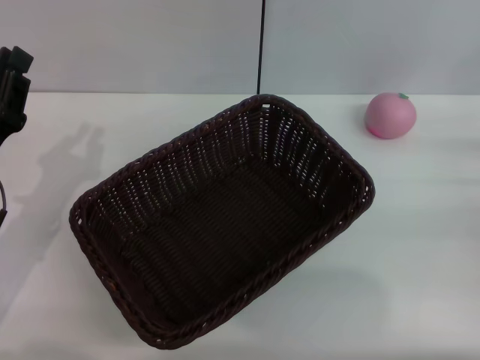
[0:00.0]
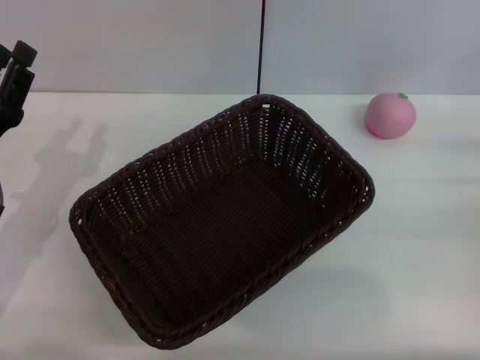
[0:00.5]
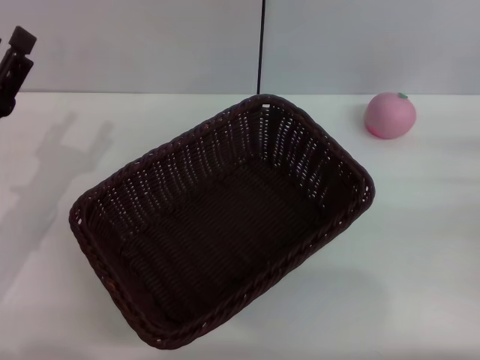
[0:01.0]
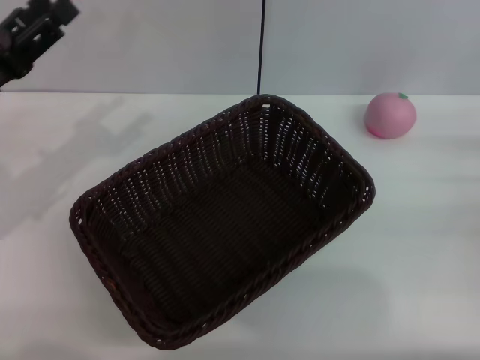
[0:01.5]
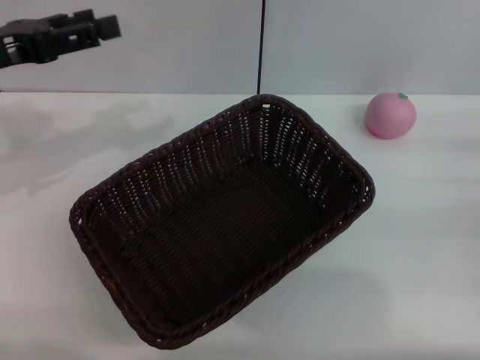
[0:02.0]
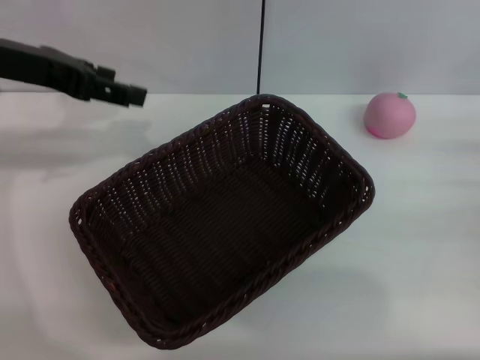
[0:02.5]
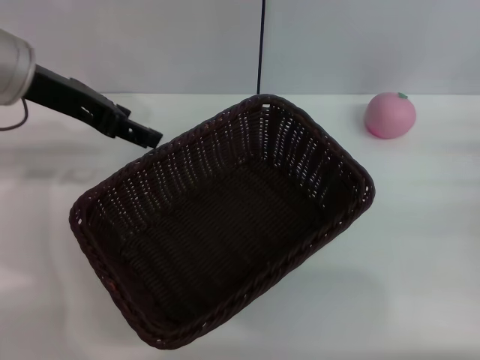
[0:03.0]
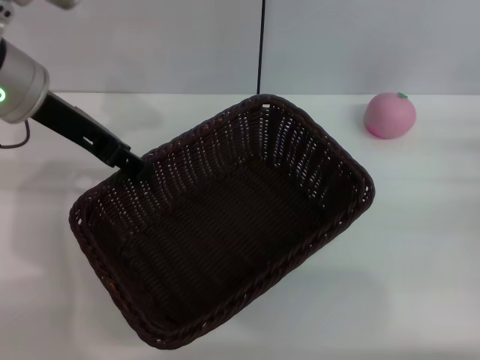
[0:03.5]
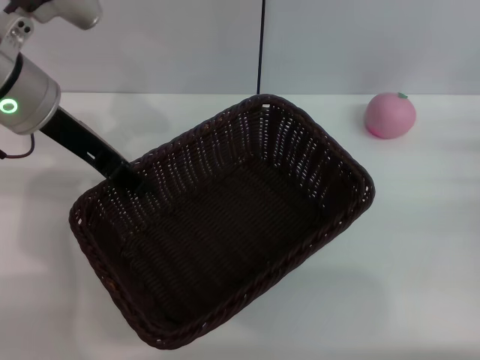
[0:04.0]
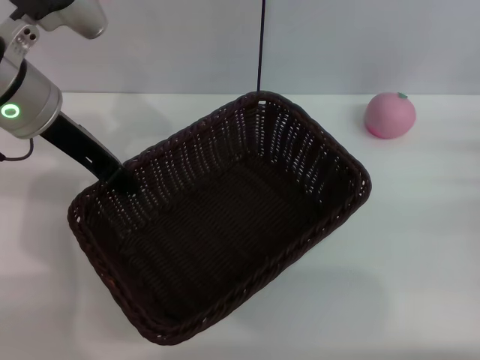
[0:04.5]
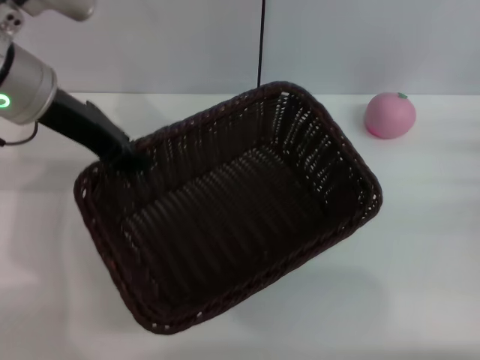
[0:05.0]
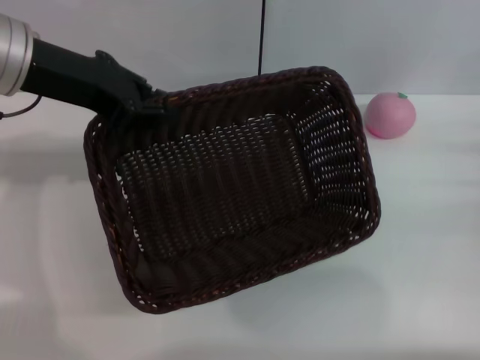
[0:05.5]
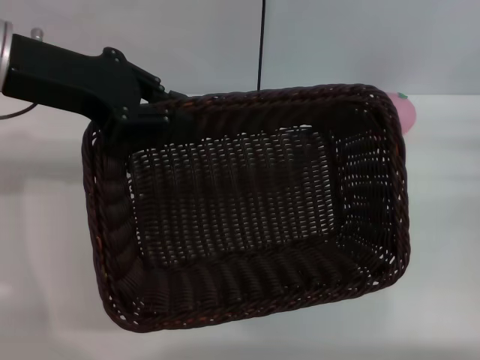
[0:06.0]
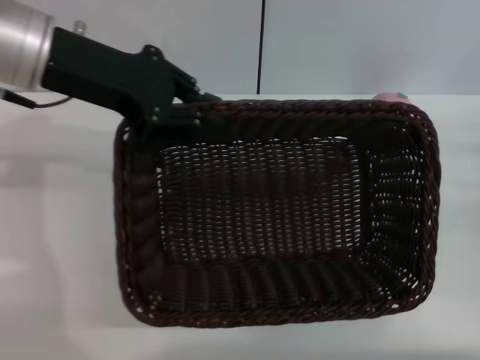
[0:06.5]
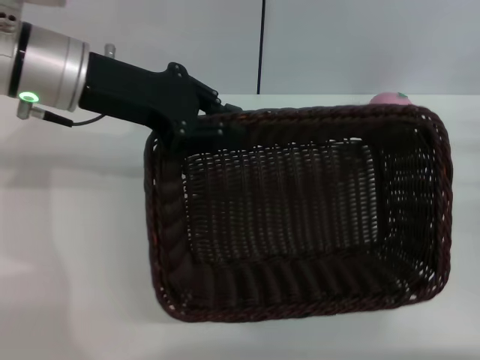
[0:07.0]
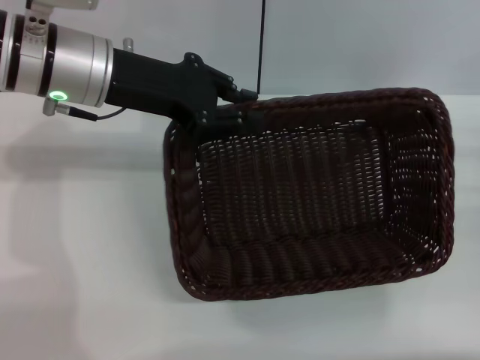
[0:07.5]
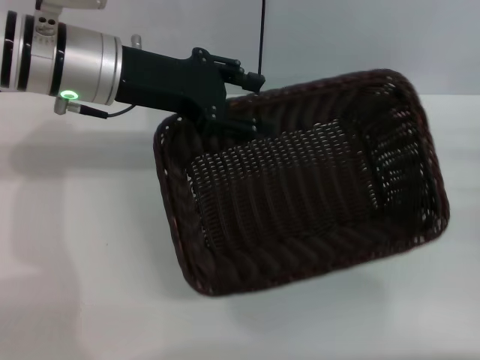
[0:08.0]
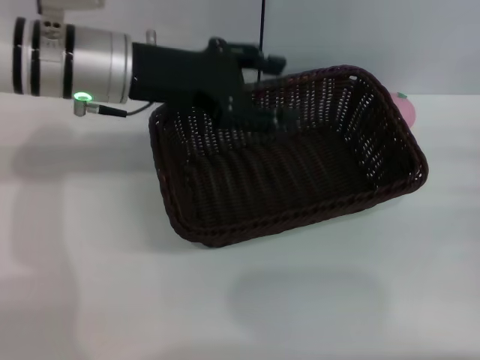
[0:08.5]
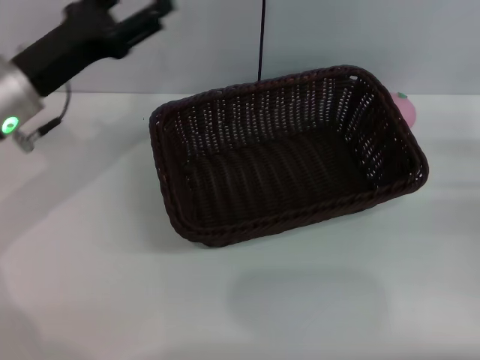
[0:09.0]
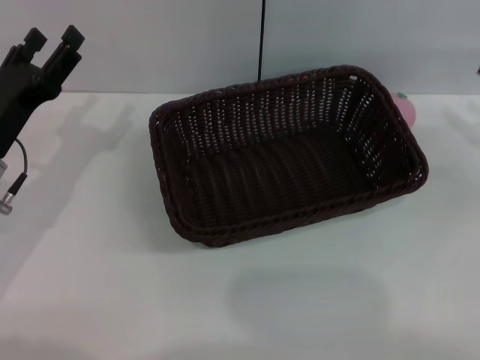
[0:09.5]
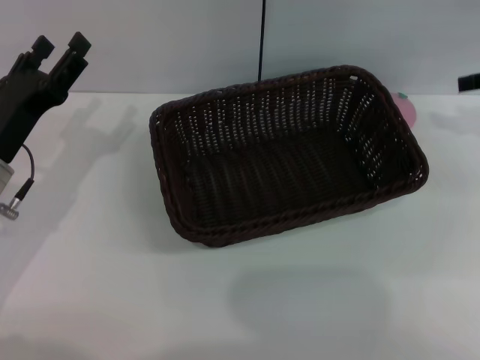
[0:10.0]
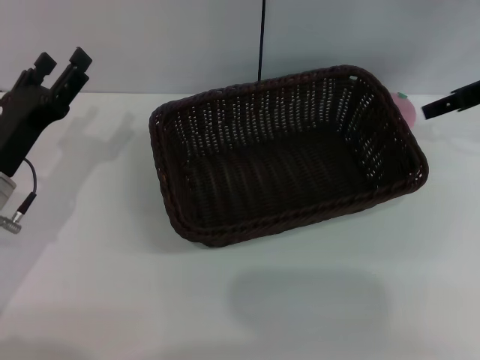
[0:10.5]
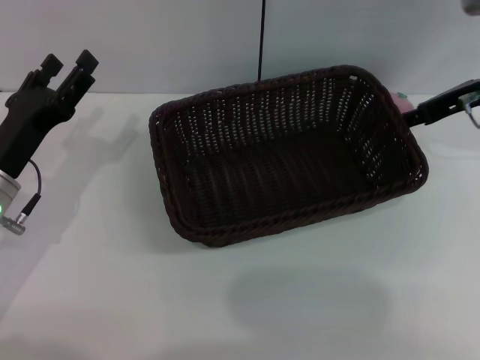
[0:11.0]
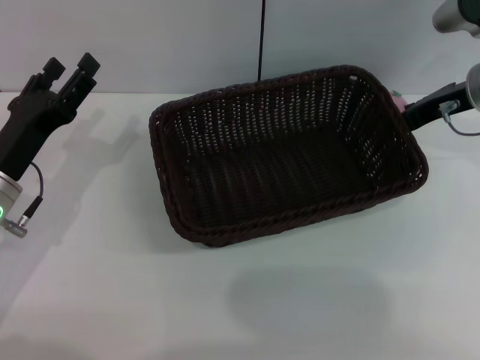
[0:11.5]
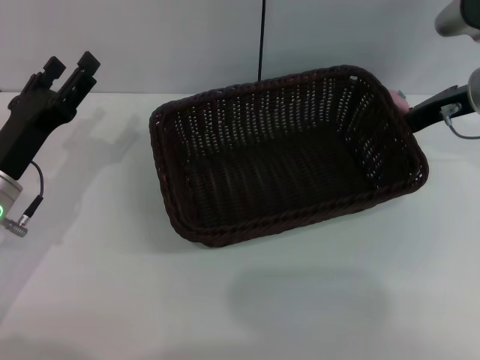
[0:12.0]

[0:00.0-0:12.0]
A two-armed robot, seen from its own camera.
Step, 0:00.0 to 0:05.0: Pick up the dark basket with the left gripper.
Step, 0:06.0 to 0:08.5: Place the dark basket in the center of view with the right gripper.
0:00.0 to 0:02.0: The left gripper moves upward and forward, some 15 cm, and opens up.
0:02.0 to 0:04.0: The left gripper goes approximately 10 cm to the right.
0:04.0 to 0:06.0: The left gripper changes place by about 5 cm, and closes.
0:06.0 to 0:08.0: The left gripper travels to the right and downward by roughly 10 cm, and opens.
0:08.0 to 0:10.0: The right gripper goes about 20 cm upward and forward, while the left gripper travels downward, to the left and backward by roughly 20 cm, and opens its fingers.
0:10.0 to 0:12.0: The right gripper heads to the left and downward, covering approximately 10 cm, and closes up.

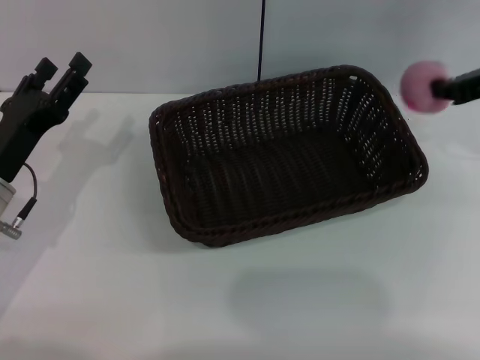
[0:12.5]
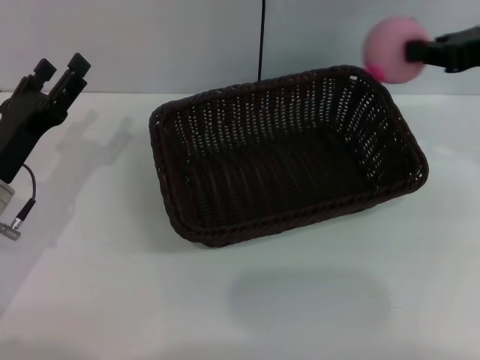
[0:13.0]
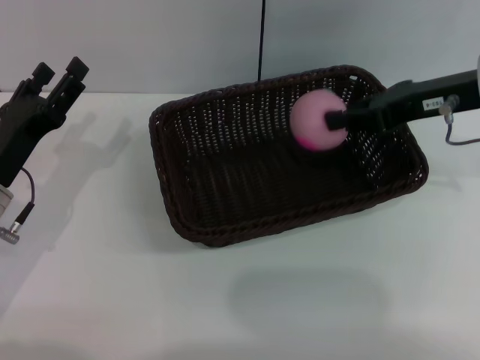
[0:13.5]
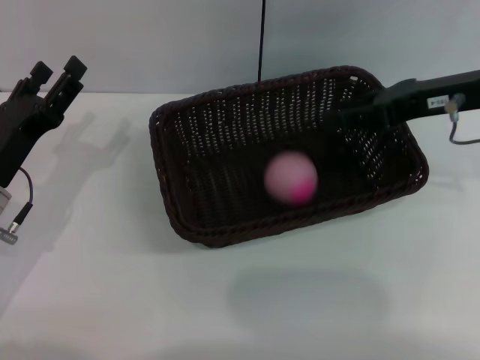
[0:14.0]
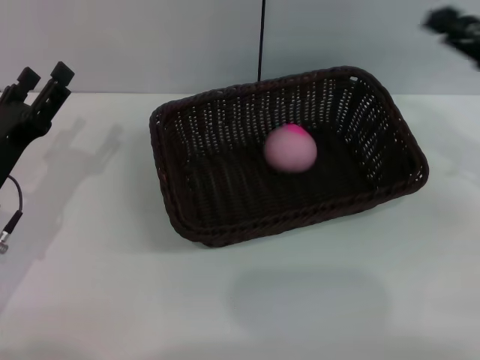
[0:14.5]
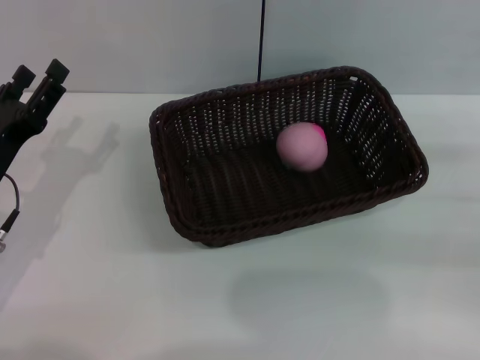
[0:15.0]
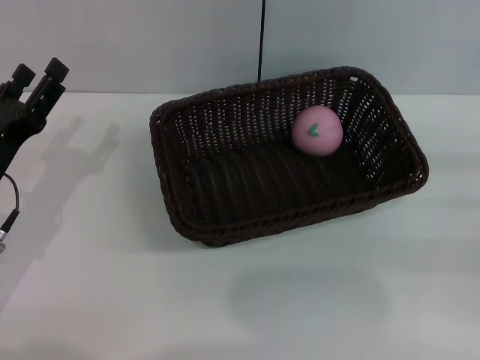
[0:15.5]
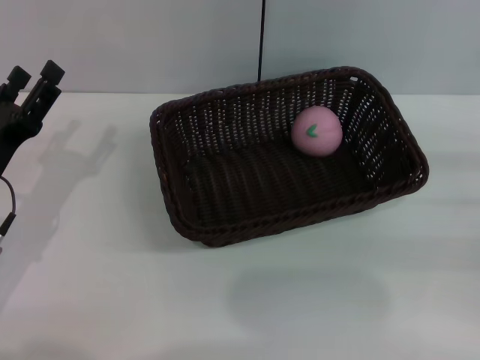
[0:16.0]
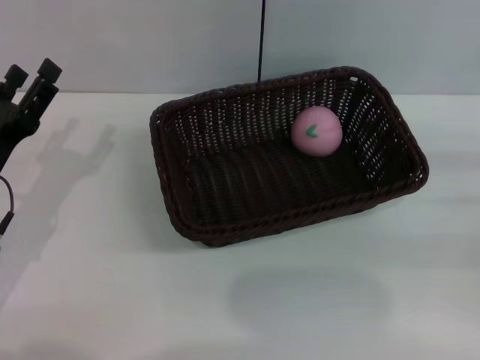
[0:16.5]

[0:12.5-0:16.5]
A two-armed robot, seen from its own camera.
0:12.5 to 0:14.5: The right gripper is displaced backward and downward by roughly 10 cm, and opens up.
0:14.5 to 0:16.5: The right gripper is displaced downward, backward and to the right by approximately 10 cm.
